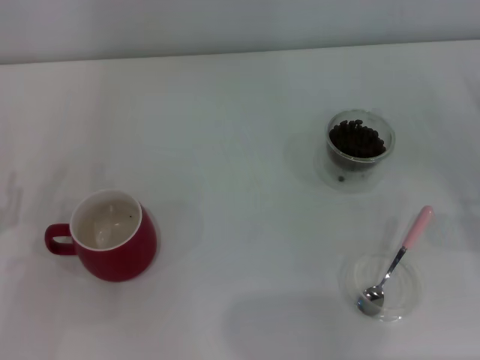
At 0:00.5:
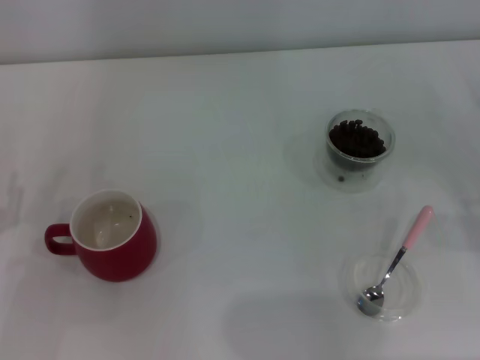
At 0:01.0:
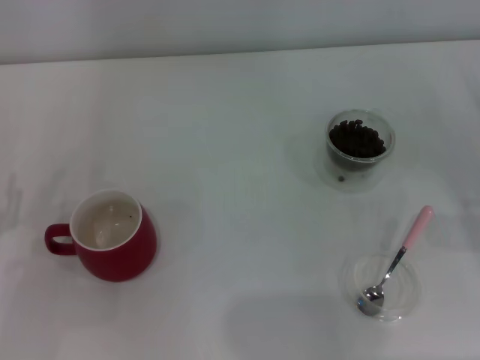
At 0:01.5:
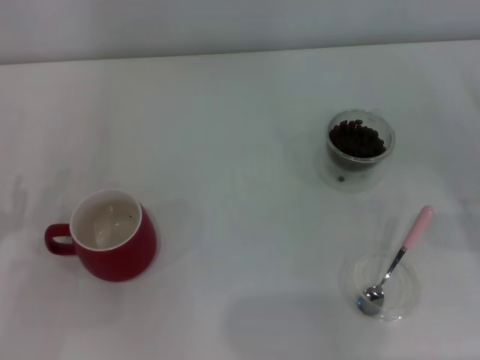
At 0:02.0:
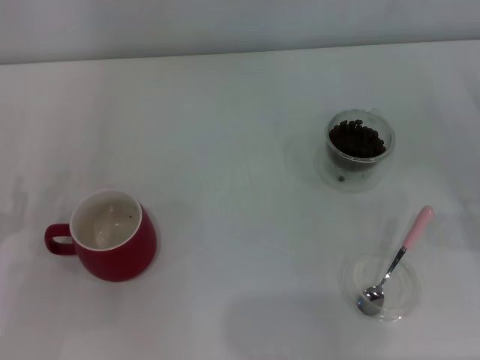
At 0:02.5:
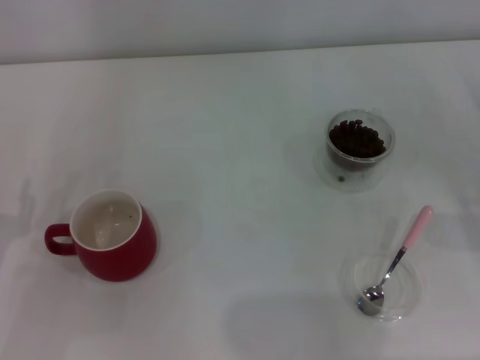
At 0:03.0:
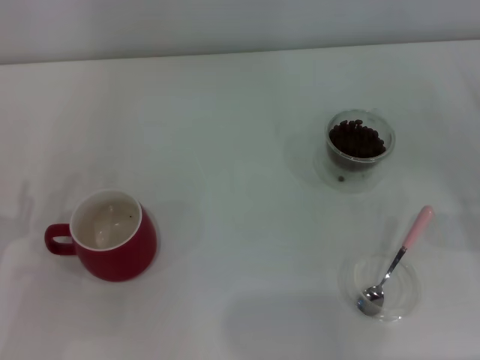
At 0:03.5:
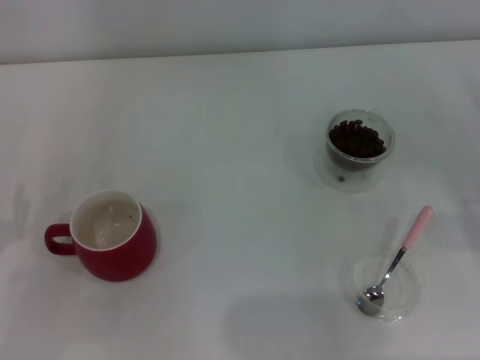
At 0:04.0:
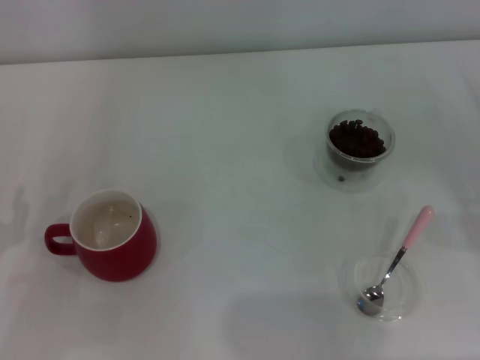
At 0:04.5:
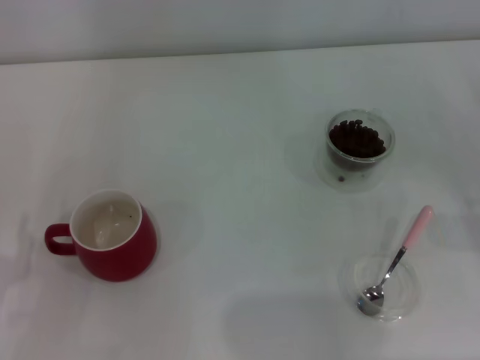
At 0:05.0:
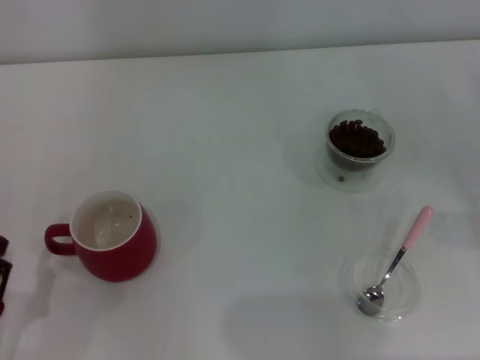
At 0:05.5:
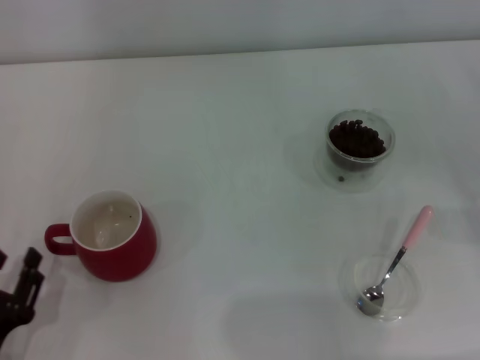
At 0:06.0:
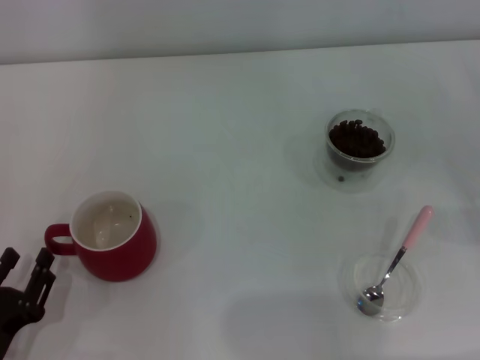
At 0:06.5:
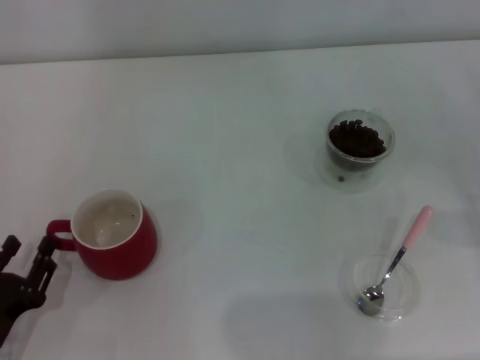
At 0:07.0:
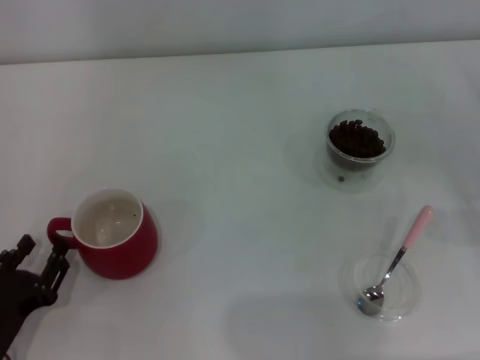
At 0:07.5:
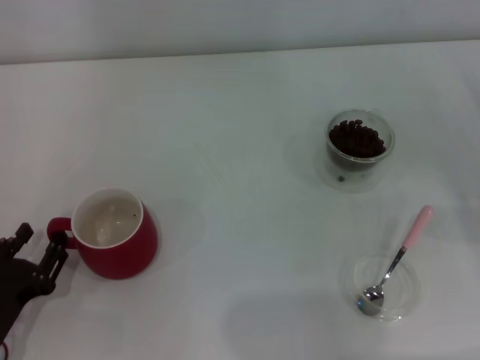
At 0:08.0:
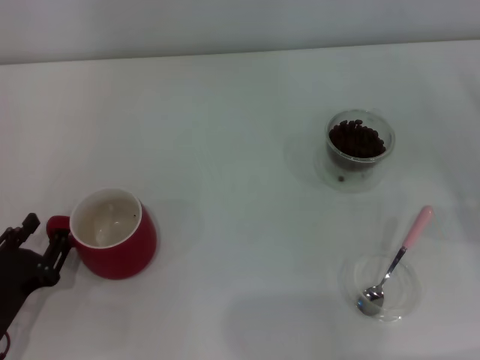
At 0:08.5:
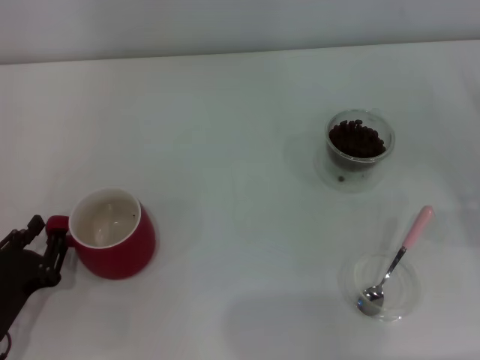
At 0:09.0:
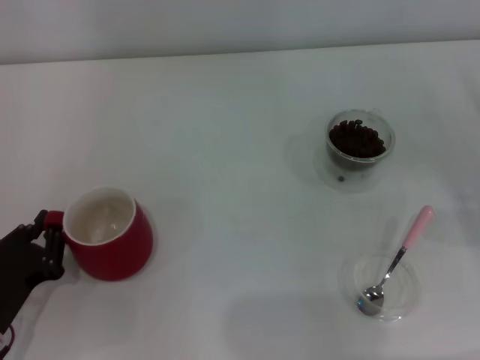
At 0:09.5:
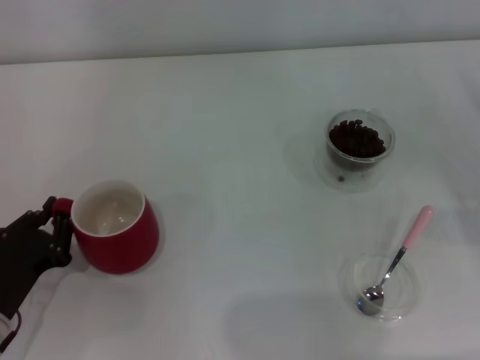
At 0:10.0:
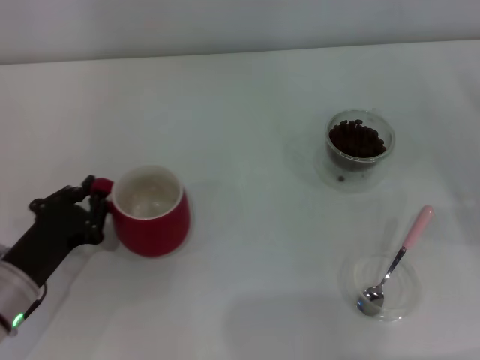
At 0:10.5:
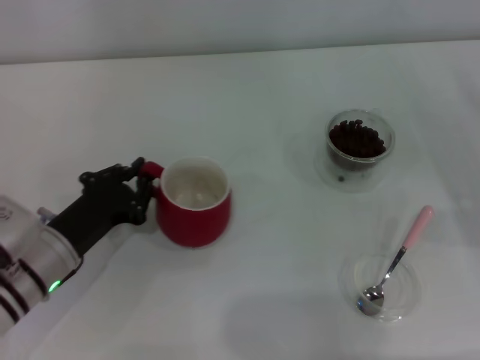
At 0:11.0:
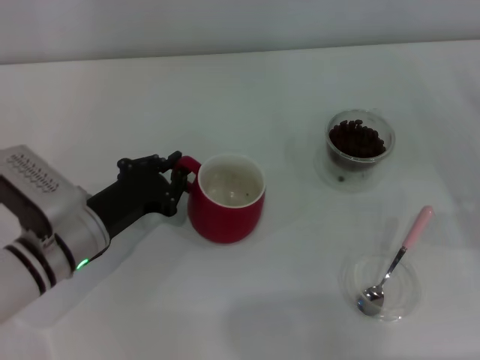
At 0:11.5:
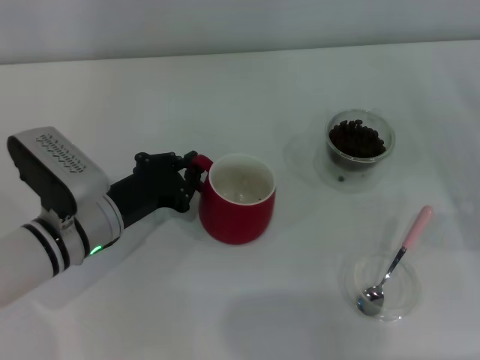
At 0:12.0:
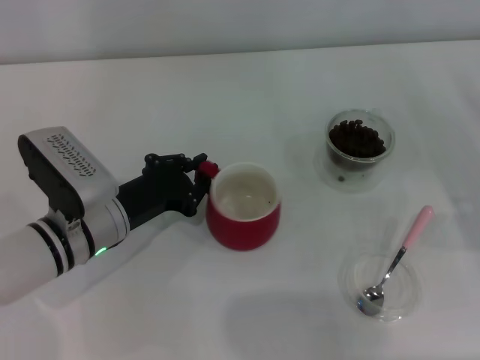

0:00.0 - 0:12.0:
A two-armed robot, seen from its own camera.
Task of the whole recording: Use a pink spoon to take out the coffee beans from the glass and pour them into the red cup.
0:00.0 - 0:02.0: Both grippers stay about where they are.
0:04.0 - 0:06.0: The left gripper heads backward, covering approximately 5 cm.
0:06.0 - 0:08.0: The grippers stay close to where they were, moving slightly.
0:08.0 - 0:10.0: The left gripper heads forward, covering approximately 5 cm, and closes.
0:10.0 - 0:12.0: The left gripper heads to the right and forward, covering approximately 10 cm.

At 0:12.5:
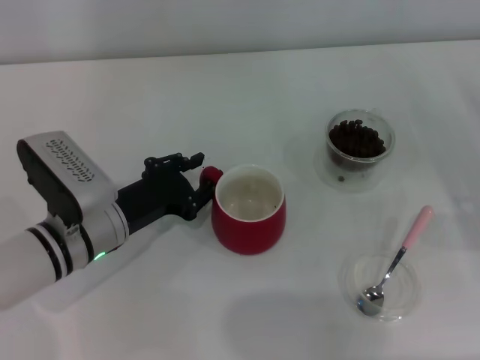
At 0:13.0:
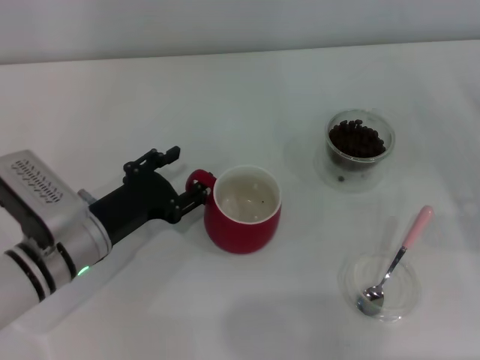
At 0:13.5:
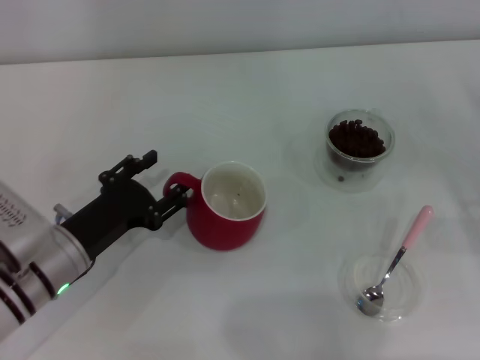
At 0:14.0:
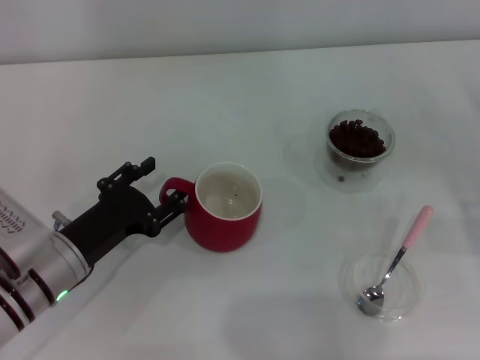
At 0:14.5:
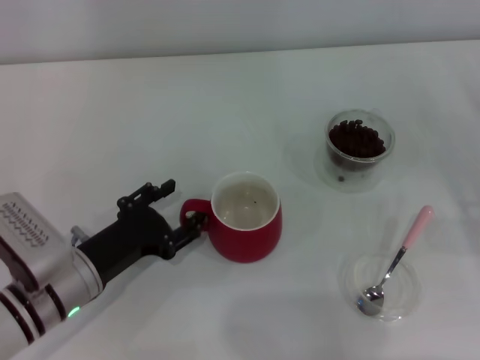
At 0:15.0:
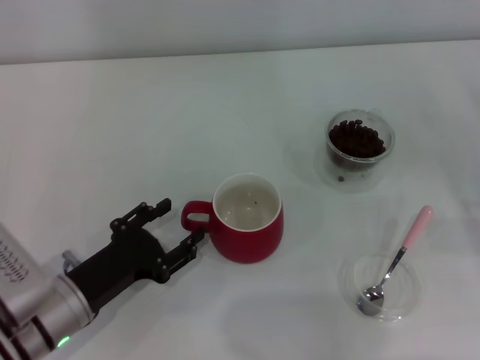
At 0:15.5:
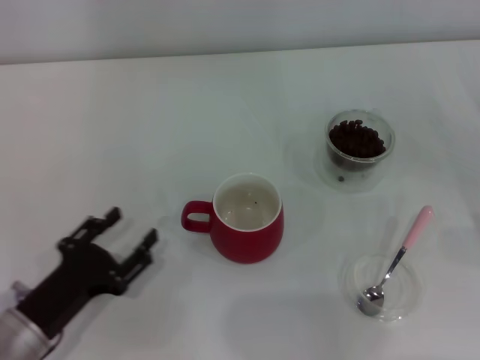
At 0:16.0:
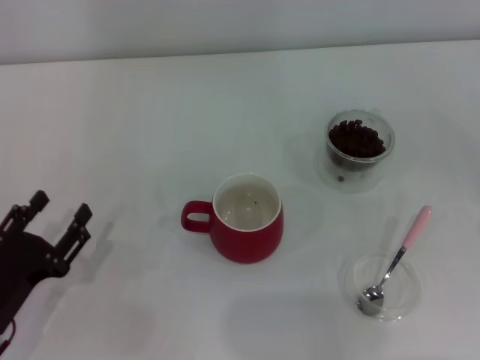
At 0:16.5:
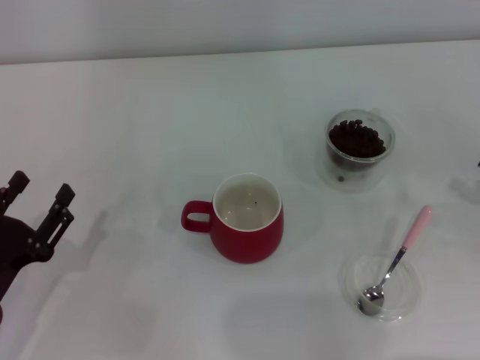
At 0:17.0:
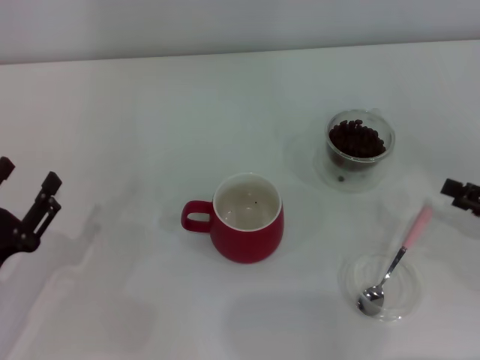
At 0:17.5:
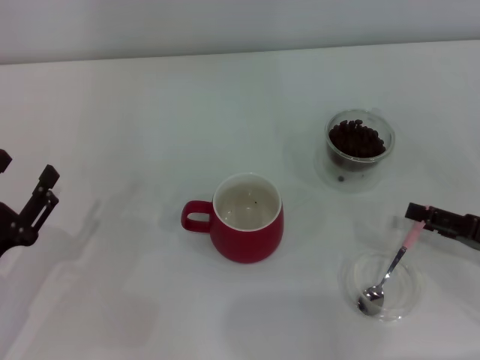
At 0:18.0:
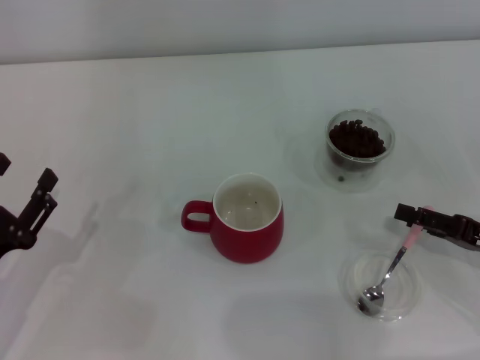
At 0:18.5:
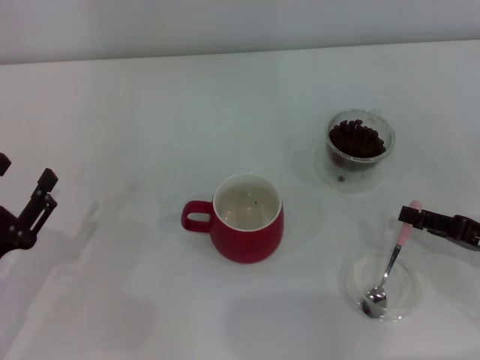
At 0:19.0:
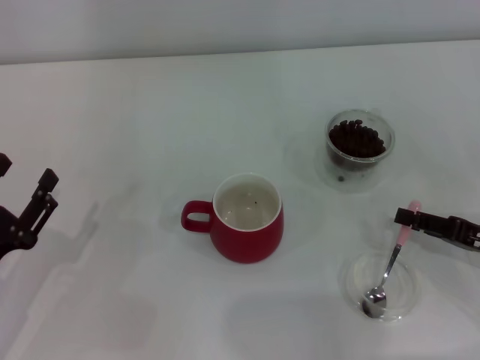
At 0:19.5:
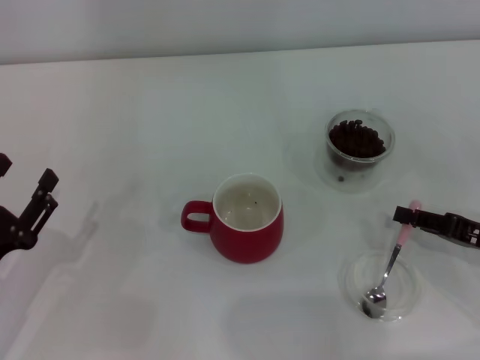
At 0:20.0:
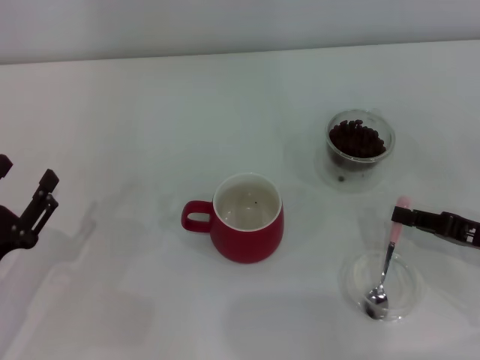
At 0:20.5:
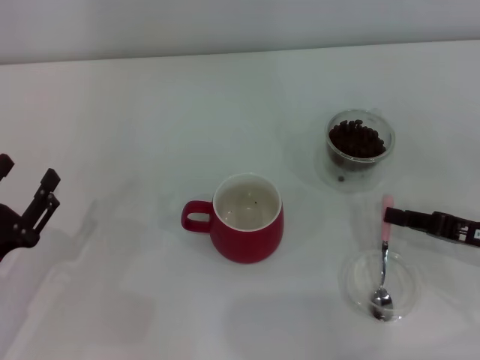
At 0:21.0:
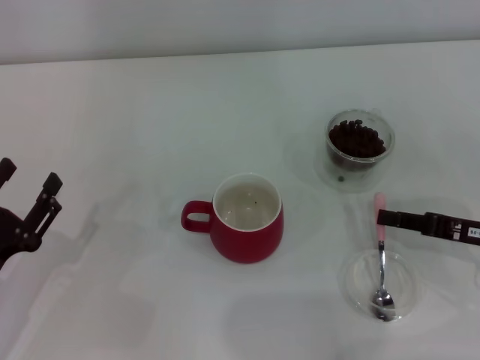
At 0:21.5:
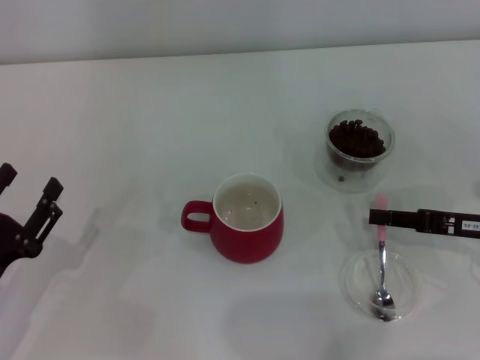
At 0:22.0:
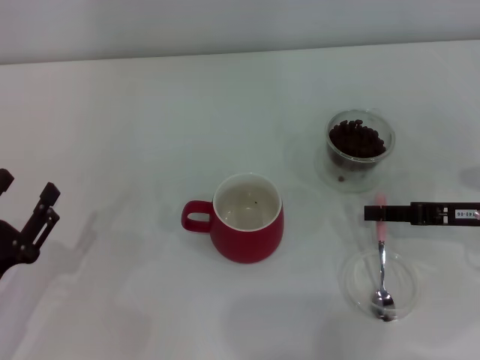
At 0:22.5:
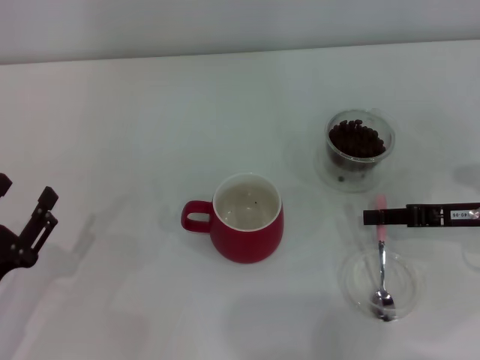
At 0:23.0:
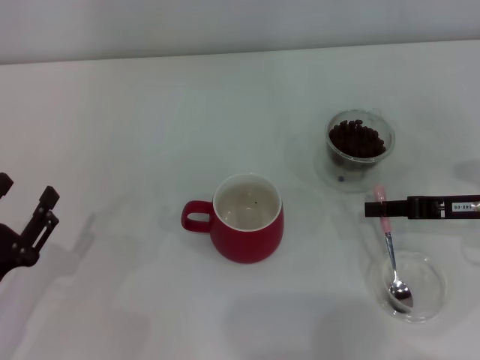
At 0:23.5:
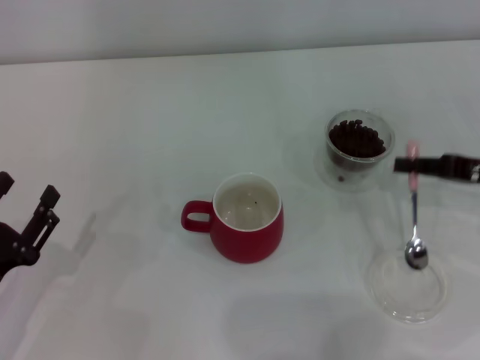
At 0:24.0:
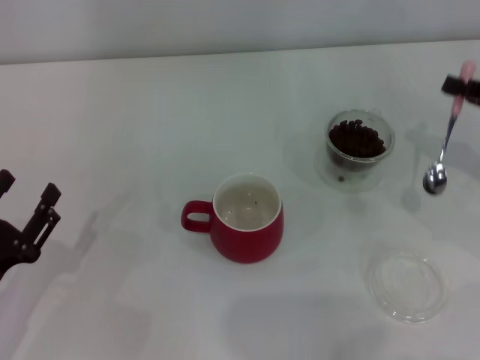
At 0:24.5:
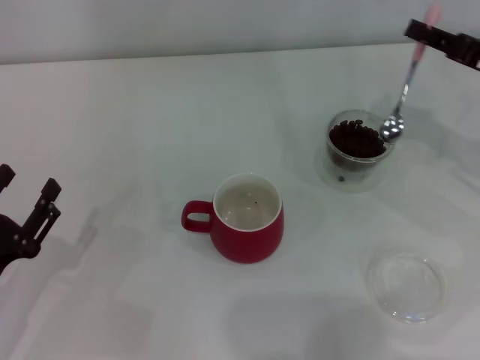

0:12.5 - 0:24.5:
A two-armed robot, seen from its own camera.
Task of the whole recording: Use a pink spoon to take out the coffee beans from the glass and pour them into the red cup.
Step, 0:12.5 - 0:15.0: Move the cup to the center of view with the left gripper.
Step, 0:15.5 - 0:23.5: Pick up the spoon with the right gripper.
0:12.5 - 0:14.5: The left gripper heads backward, covering about 5 cm, and opens.
0:14.5 - 0:16.5: The left gripper shifts roughly 10 cm to the left and backward.
0:16.5 - 0:18.5: The right gripper travels to the left by about 5 cm, and closes.
0:18.5 - 0:20.5: The right gripper closes.
0:20.5 - 0:22.5: The right gripper heads forward, covering about 5 cm.
0:22.5 - 0:24.5: The right gripper travels upward and forward by approximately 10 cm.

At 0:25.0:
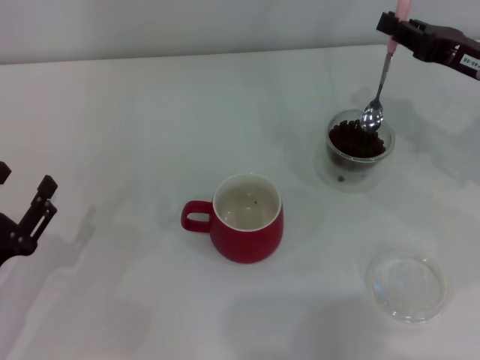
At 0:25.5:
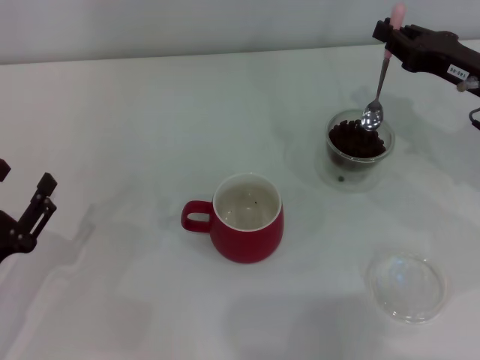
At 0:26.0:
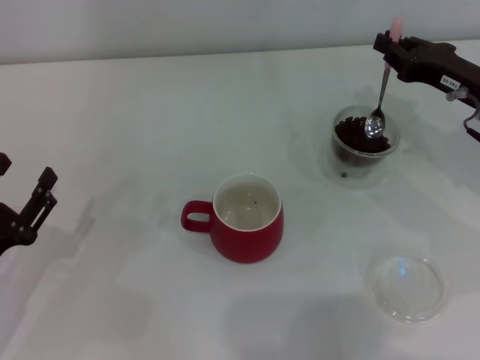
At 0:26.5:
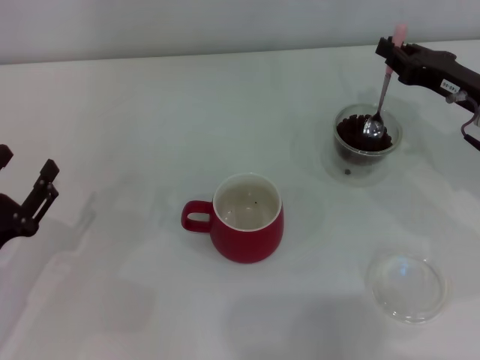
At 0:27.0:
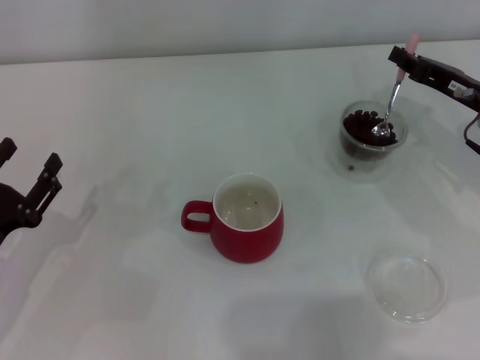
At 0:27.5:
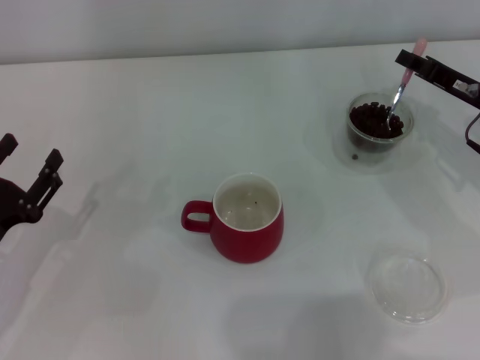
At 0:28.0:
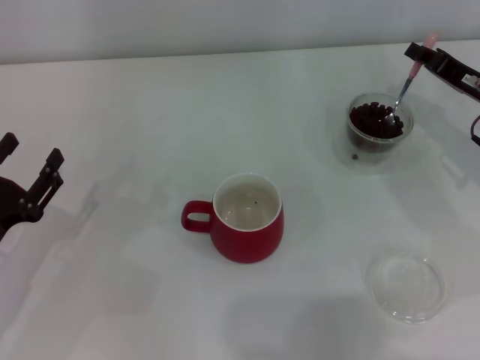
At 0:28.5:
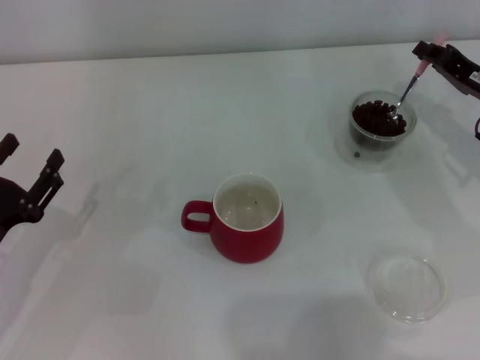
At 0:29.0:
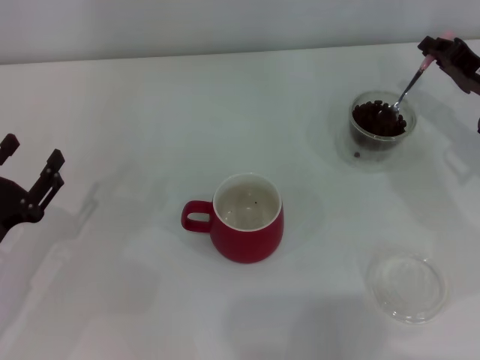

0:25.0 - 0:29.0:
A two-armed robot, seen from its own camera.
Task of the whole recording: Use a pink spoon to take out the coffee beans from the glass and pour them into the red cup.
0:25.0 - 0:27.0: The grippers move only a little.
